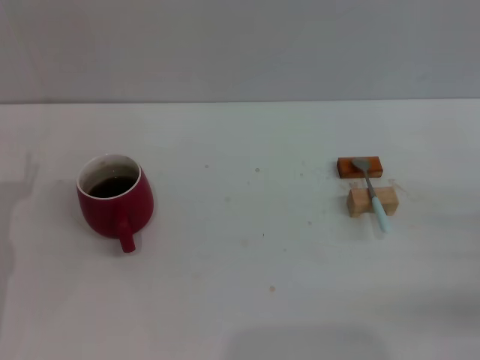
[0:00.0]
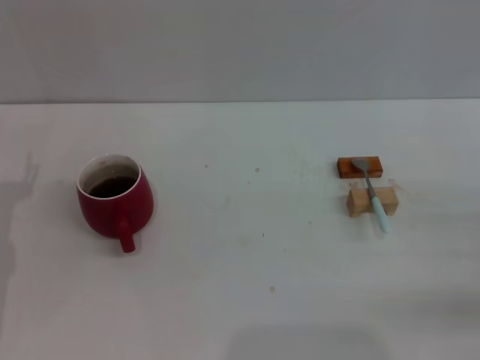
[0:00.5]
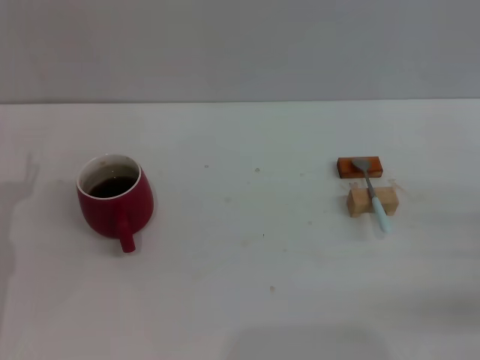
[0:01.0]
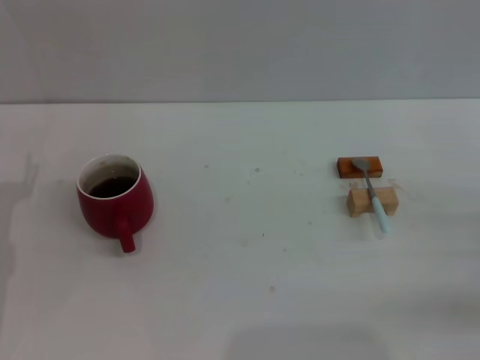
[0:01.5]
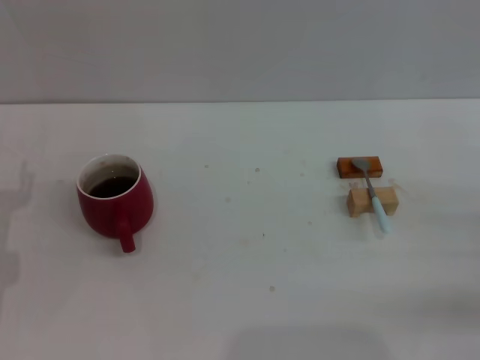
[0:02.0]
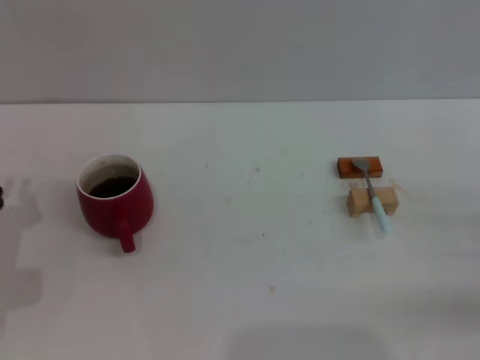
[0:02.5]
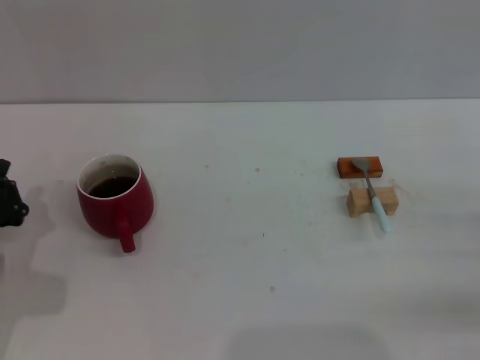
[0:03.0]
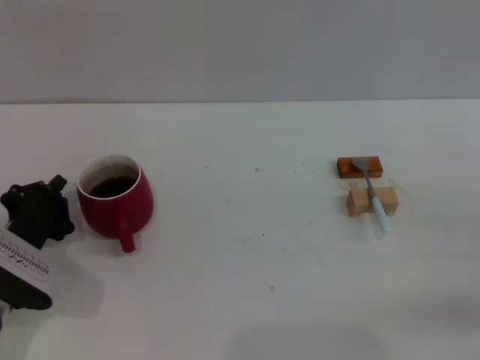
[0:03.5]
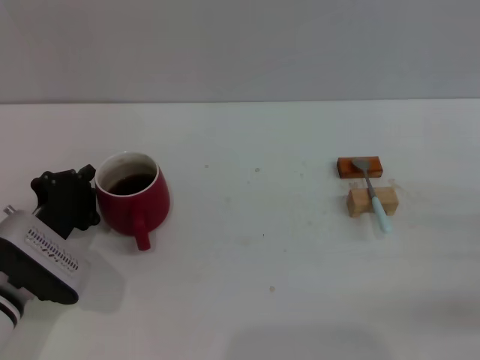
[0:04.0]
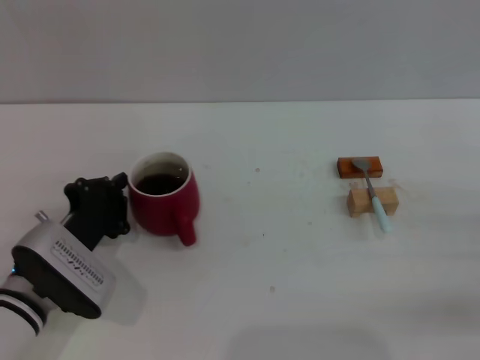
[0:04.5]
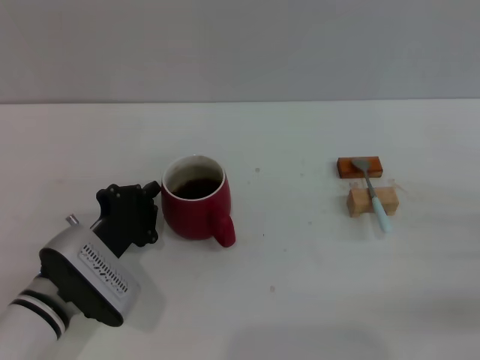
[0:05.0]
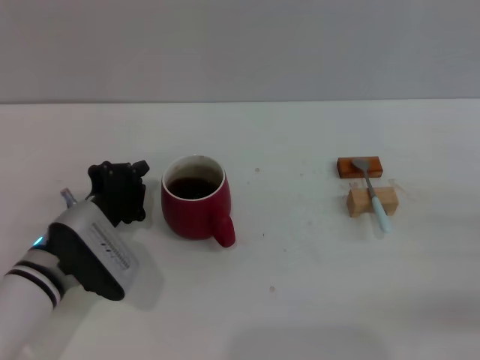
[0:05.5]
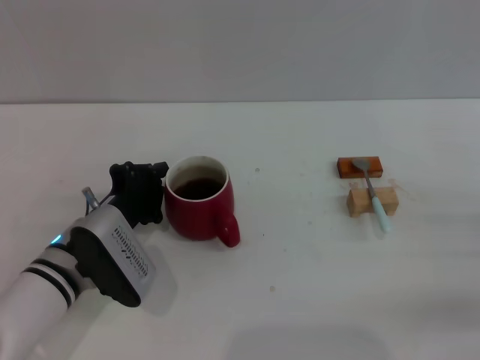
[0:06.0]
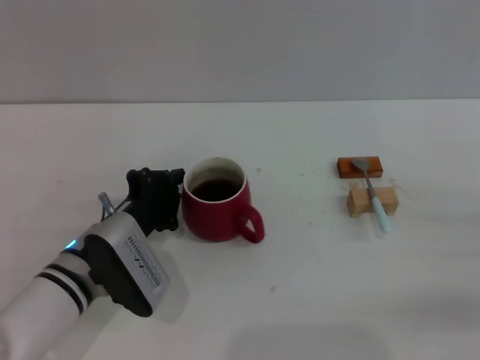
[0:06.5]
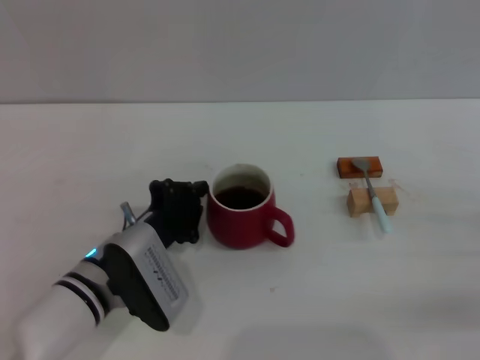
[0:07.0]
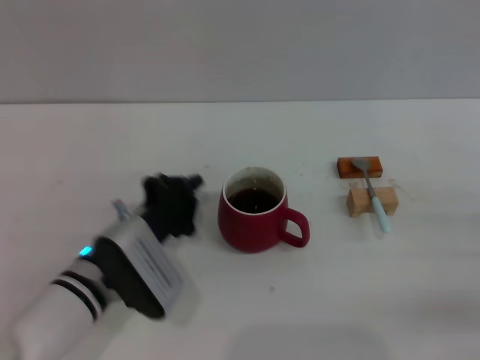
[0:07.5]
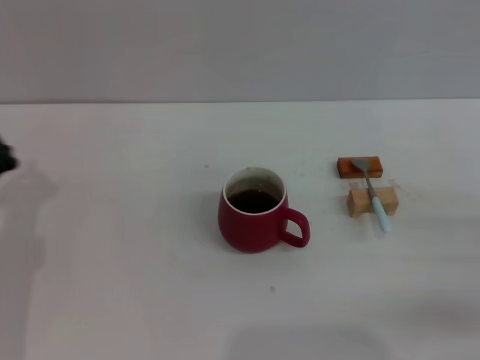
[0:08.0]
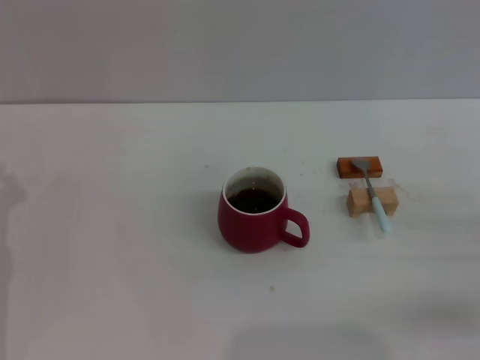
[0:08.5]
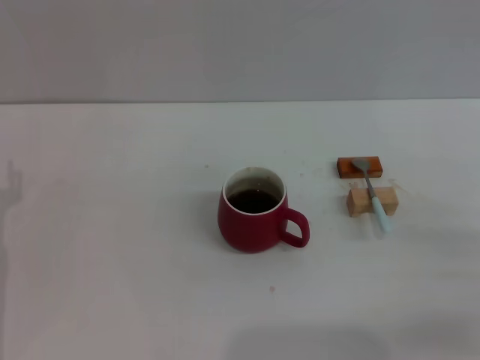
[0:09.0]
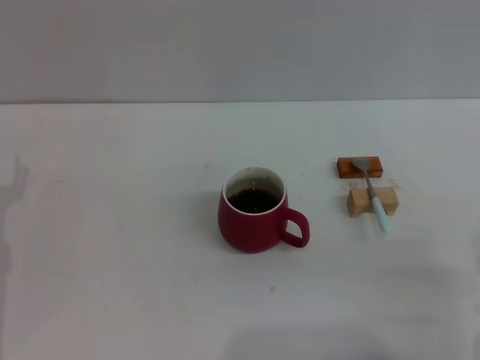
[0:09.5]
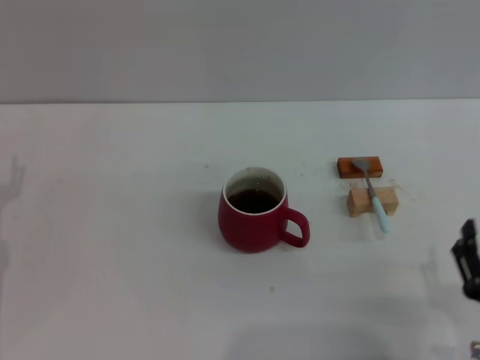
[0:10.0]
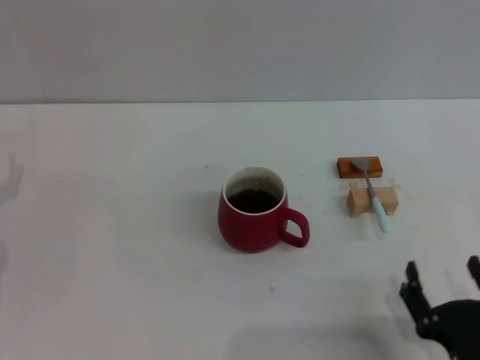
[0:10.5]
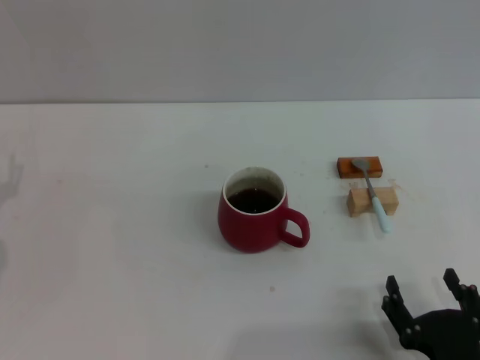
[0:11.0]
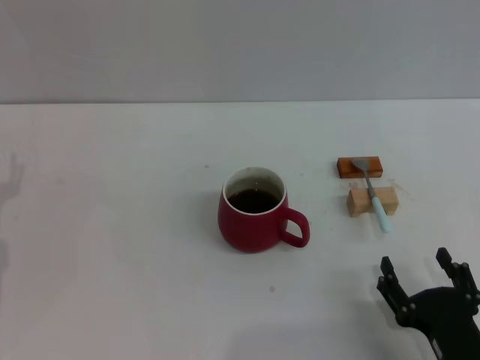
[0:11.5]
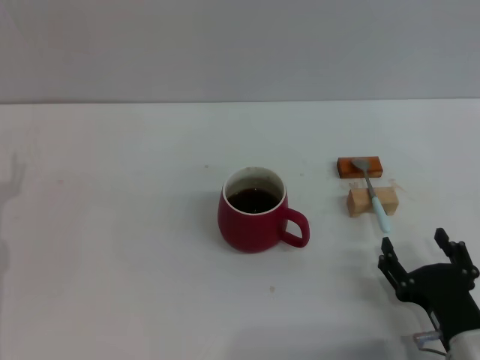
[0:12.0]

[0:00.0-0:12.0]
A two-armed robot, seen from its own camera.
Task of the whole recording: Move the red cup to the center, lift the blue spoon, stir it three times in the cup, and put the spoon into the cup.
Step, 0:00.0 to 0:09.0: Move the cup with coffee to the center of view with the left gripper.
0:00.0 to 0:02.0: Both grippers stay about where they are.
0:02.0 to 0:04.0: The left gripper goes approximately 5 cm to the right, and closes up.
0:04.0 to 0:06.0: The left gripper is displaced to the right by about 5 cm.
0:06.0 to 0:08.0: The left gripper is displaced to the left by about 10 cm.
0:08.0 to 0:10.0: The right gripper is displaced to the left and backward by approximately 15 cm.
0:10.0 to 0:12.0: The right gripper shifts by some 5 cm.

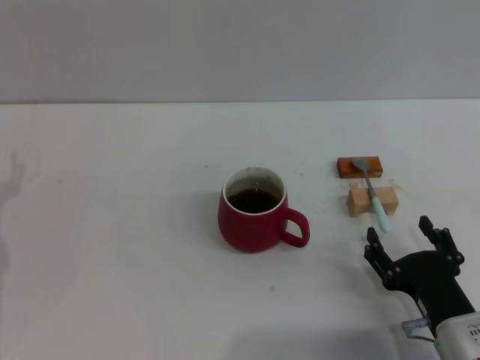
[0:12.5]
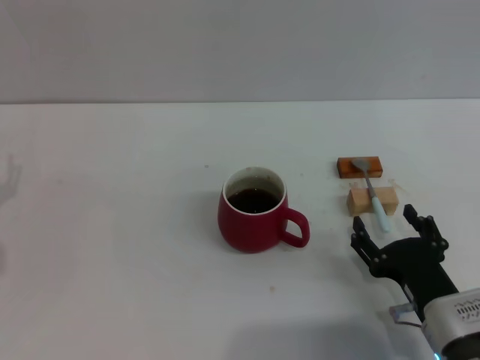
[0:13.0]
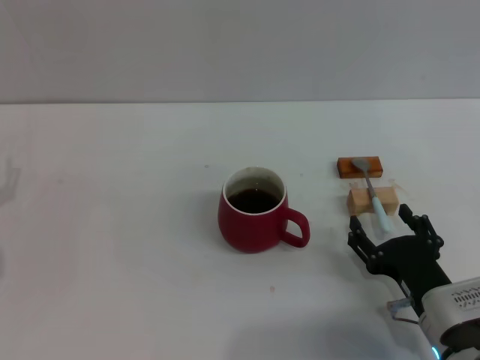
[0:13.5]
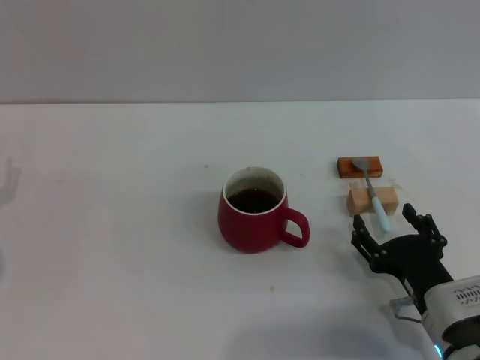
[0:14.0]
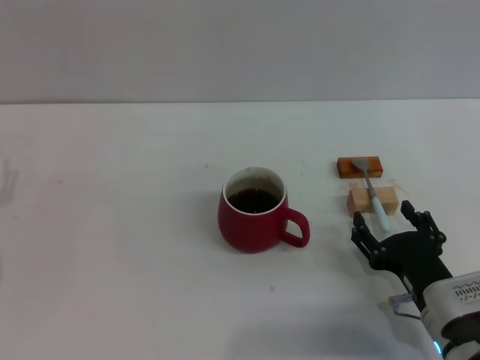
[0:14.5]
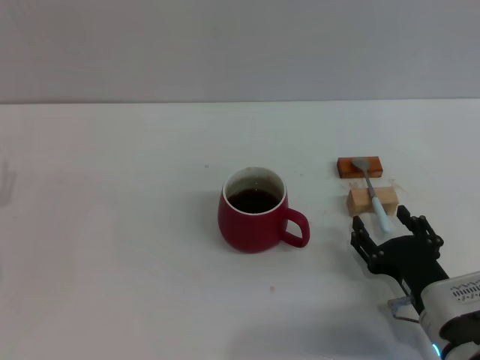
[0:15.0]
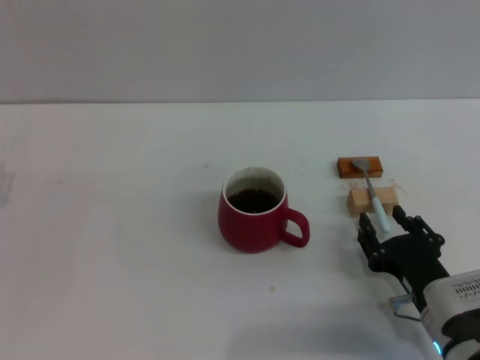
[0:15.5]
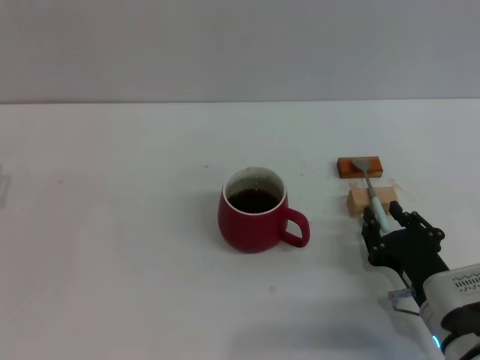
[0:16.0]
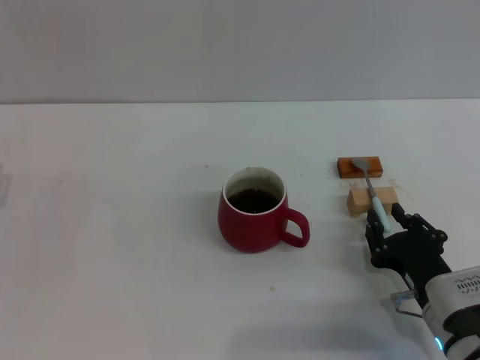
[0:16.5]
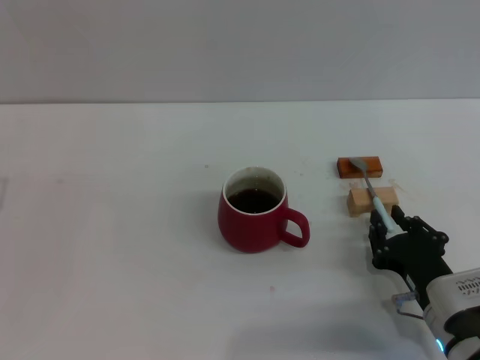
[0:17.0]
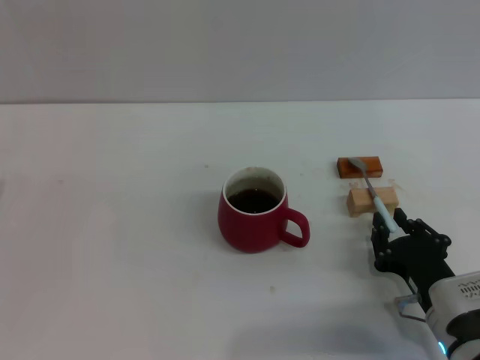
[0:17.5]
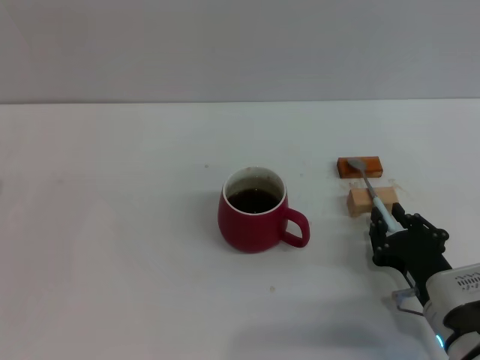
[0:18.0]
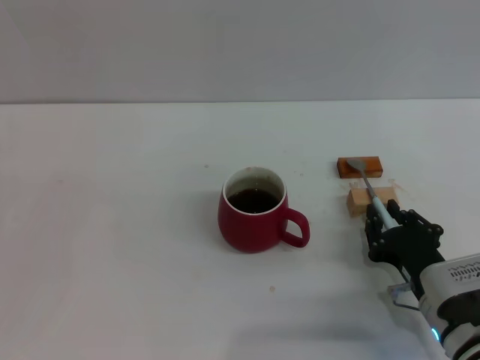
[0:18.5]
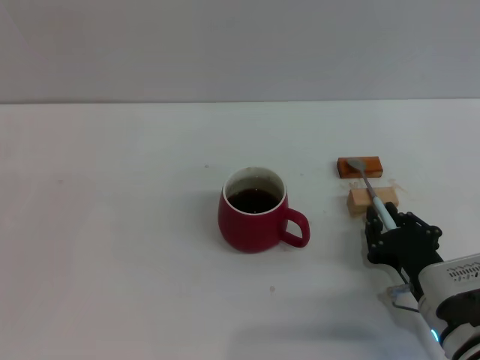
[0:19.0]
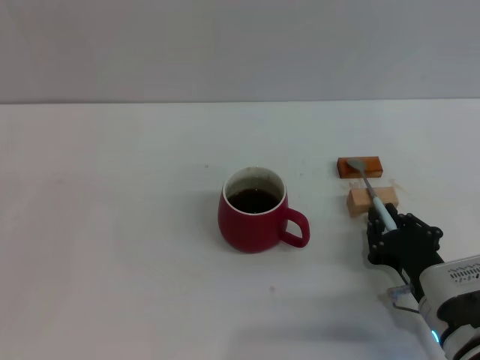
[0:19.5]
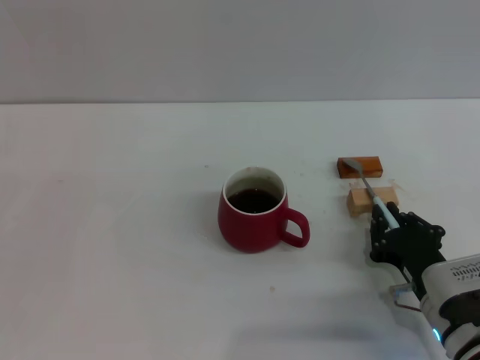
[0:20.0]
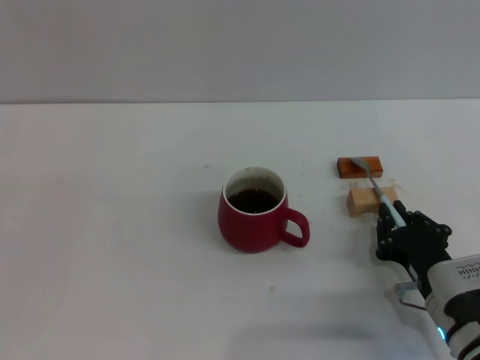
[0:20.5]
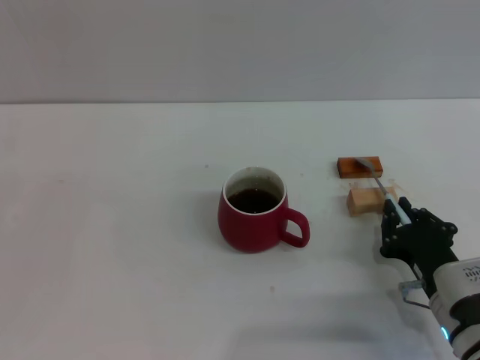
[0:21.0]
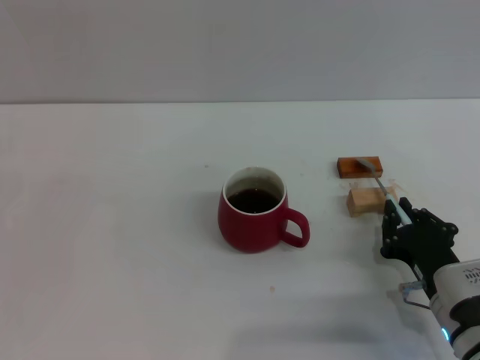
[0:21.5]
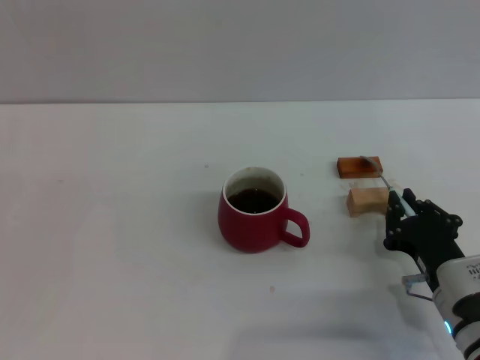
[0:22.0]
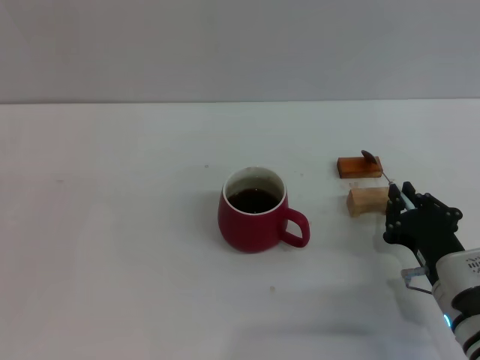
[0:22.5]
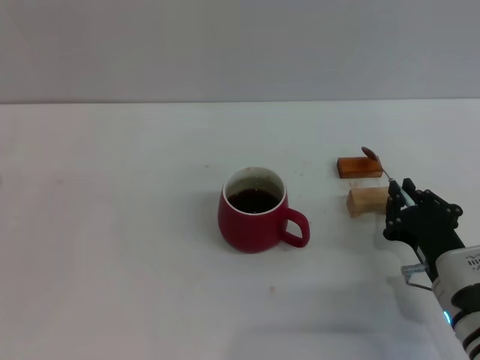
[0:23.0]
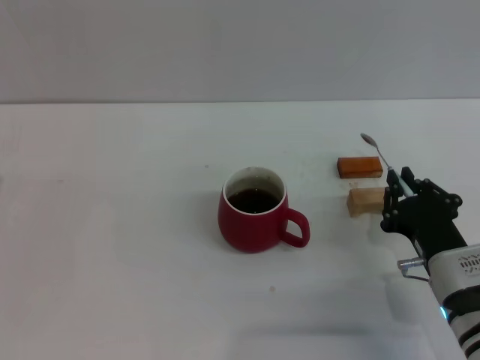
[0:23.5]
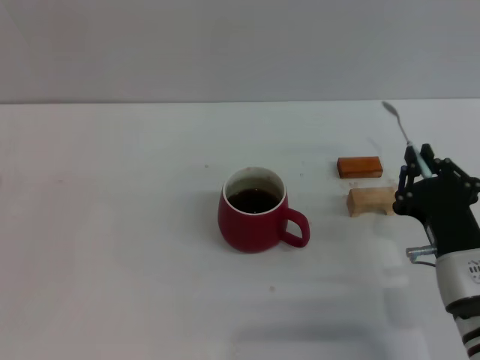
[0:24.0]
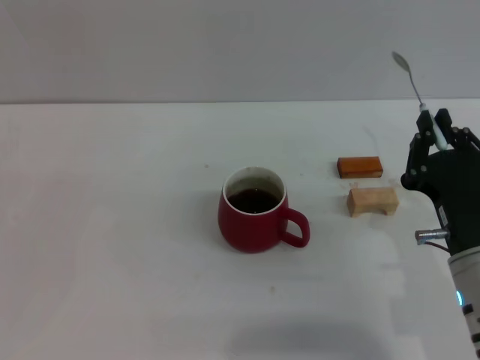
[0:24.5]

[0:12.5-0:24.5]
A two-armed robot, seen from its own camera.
Task of the whole recording: Move the red cup to the center, lift the blue spoon, stir it three times in the cup, and put the spoon into the cup.
Step, 0:12.5 to 0:24.0: Pick up the spoon with the right gripper.
0:12.5 to 0:14.5: The grippers stay close to where they were, moving slightly.
0:14.5 to 0:16.5: The right gripper closes up.
0:16.5 to 0:18.5: The grippers move only a little.
0:18.5 to 0:20.5: Both grippers stay about where they are.
0:20.5 to 0:22.5: Both grippers stay about where they are.
0:22.5 to 0:24.5: The right gripper heads upward, covering roughly 5 cm.

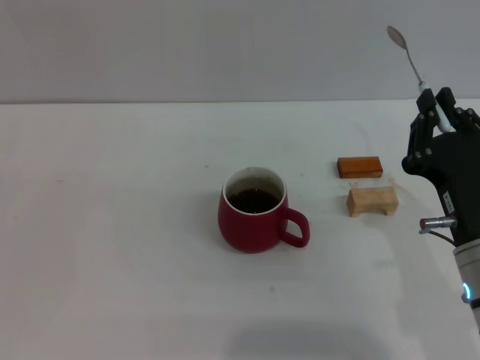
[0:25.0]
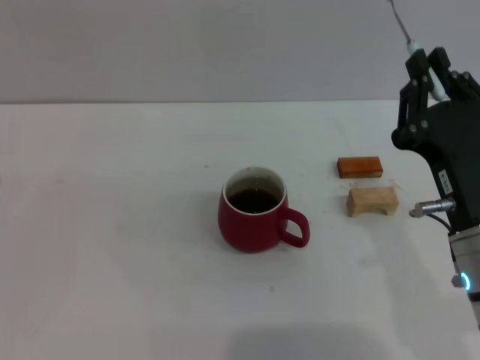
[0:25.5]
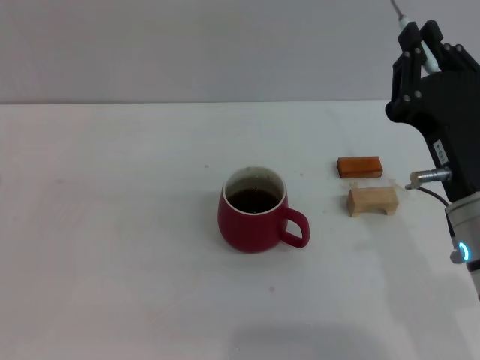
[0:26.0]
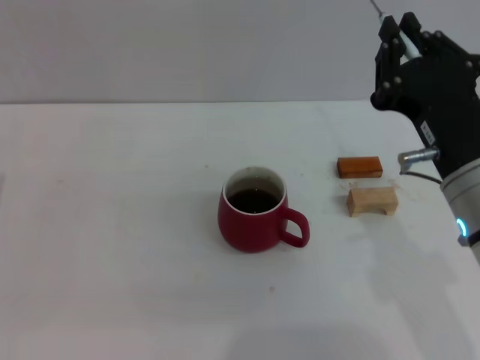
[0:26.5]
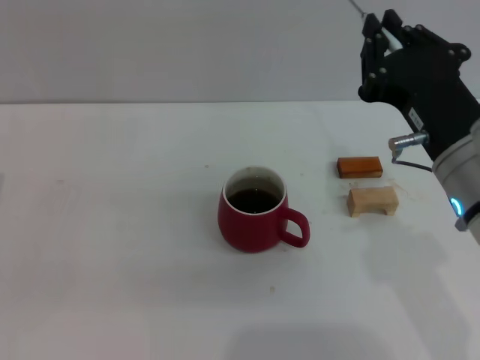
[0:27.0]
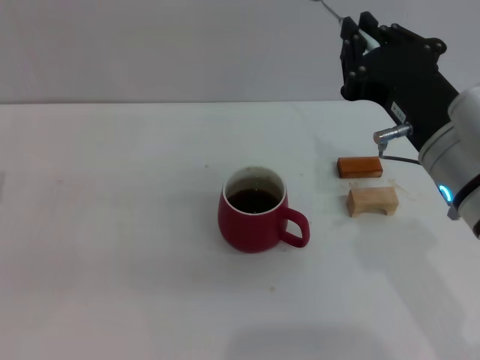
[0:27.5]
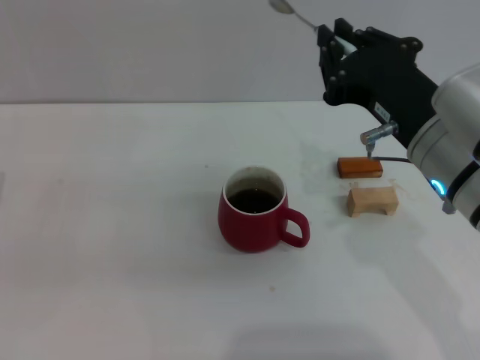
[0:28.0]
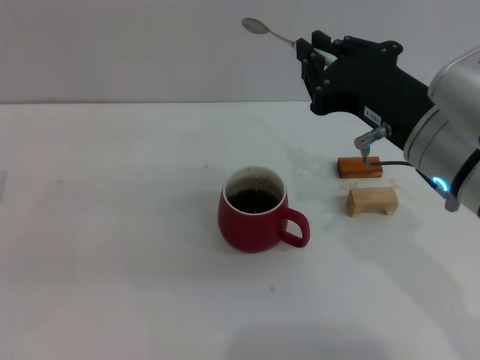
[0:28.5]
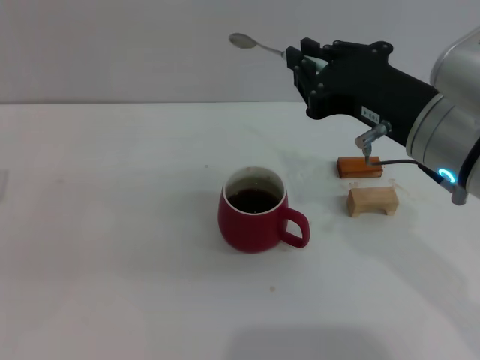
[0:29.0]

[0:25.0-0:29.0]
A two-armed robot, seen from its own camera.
Task of the whole recording: Move the red cup to the center, lift the blue spoon, stir it three times in the cup, and put the spoon into the cup.
0:25.0 to 0:27.0: The right gripper travels upward by roughly 10 cm.
